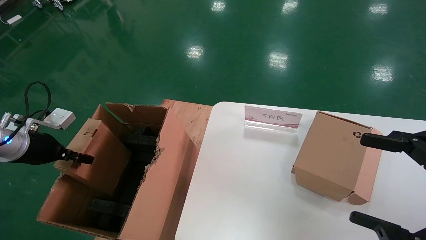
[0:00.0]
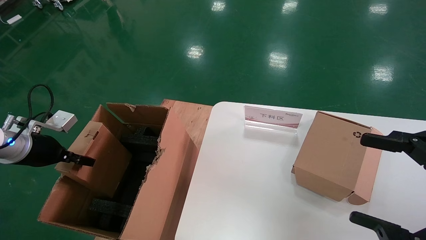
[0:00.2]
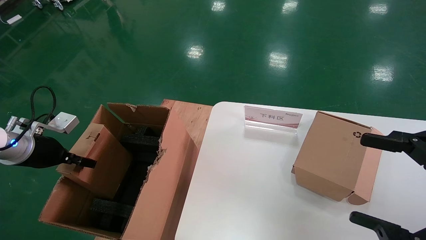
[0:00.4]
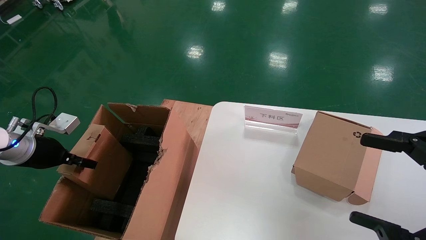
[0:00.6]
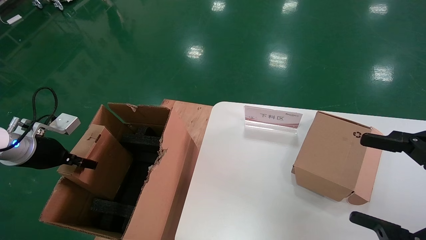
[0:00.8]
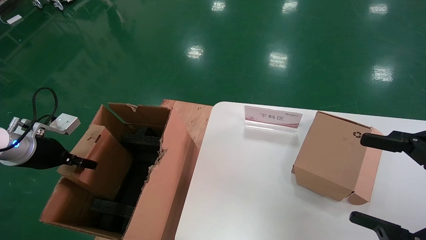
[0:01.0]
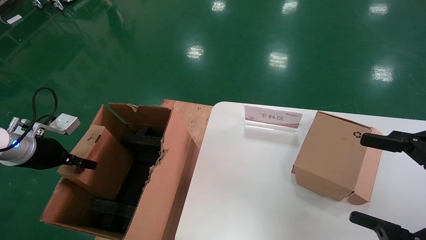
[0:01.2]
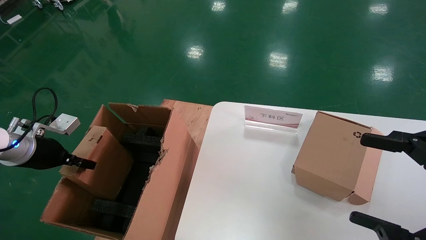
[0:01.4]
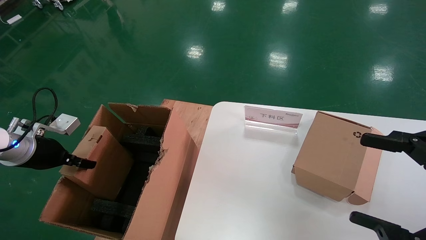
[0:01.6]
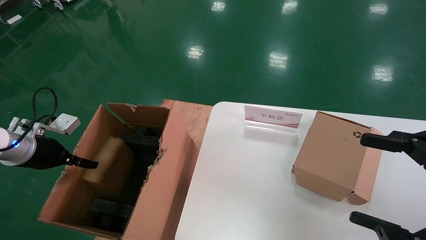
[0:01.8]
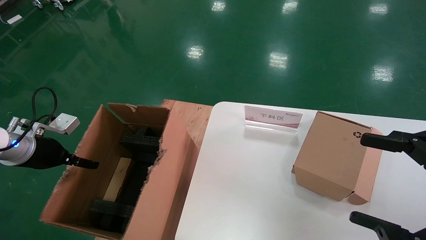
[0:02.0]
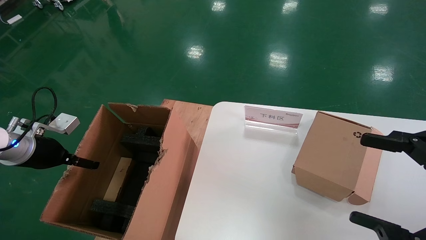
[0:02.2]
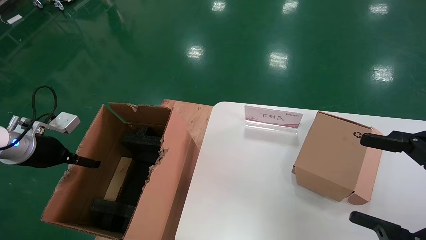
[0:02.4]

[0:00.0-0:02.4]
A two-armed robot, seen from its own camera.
Task of the whole recording: put the box on the table into the big box.
0:00.0 to 0:01.2: The grippers stay close to where they were, moving slightly.
0:01.2 to 0:02.4: The left gripper opens its fingers.
